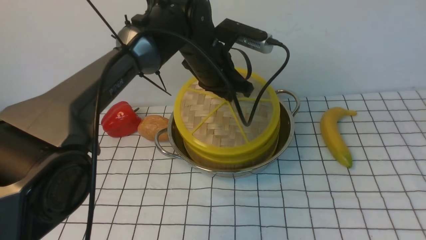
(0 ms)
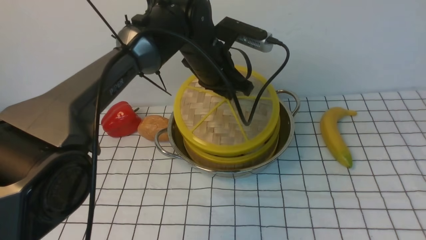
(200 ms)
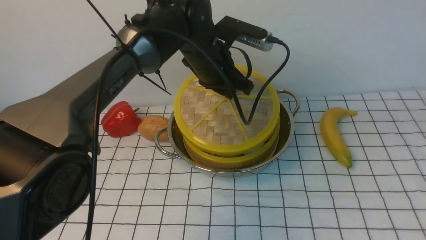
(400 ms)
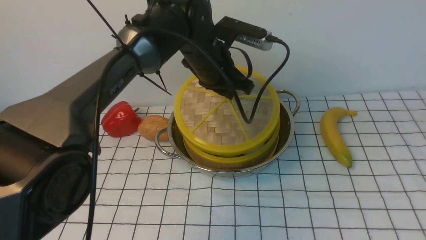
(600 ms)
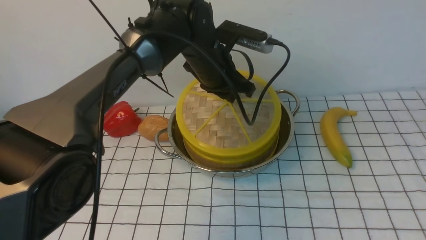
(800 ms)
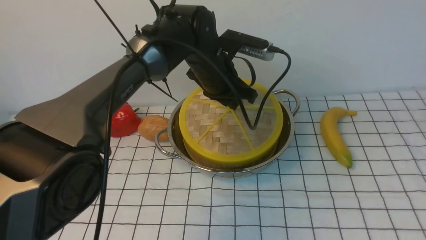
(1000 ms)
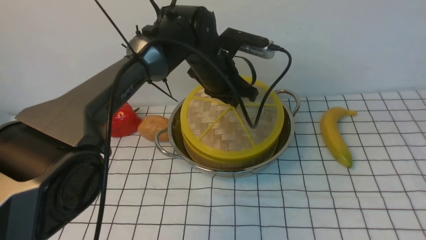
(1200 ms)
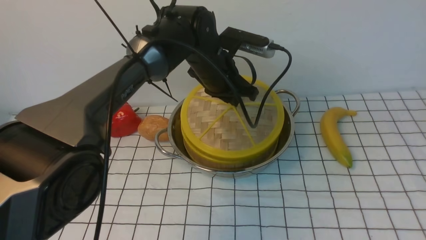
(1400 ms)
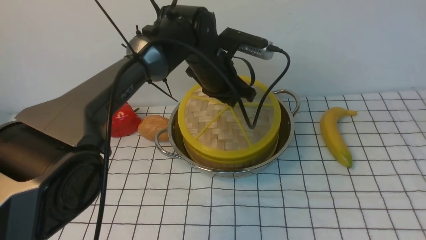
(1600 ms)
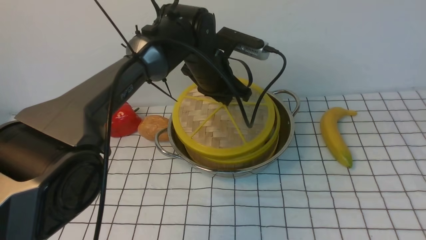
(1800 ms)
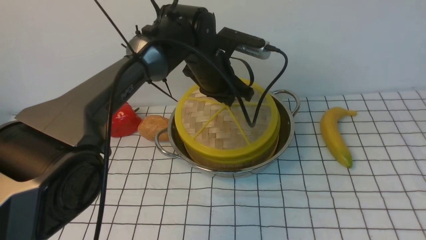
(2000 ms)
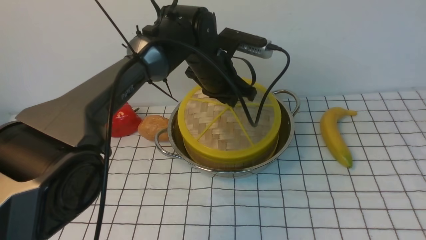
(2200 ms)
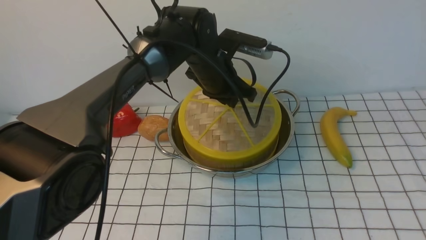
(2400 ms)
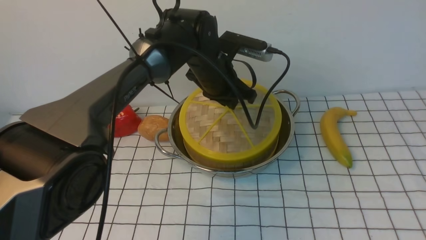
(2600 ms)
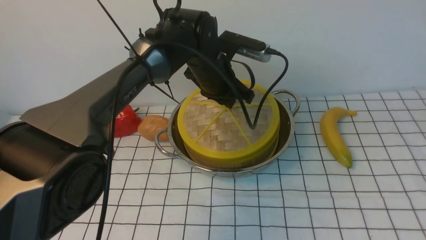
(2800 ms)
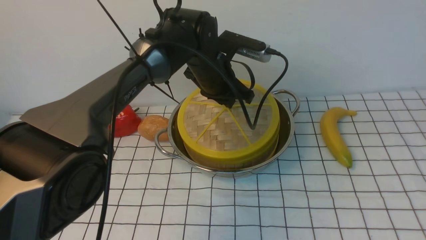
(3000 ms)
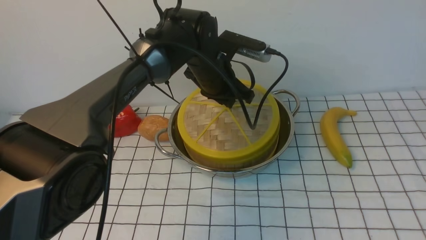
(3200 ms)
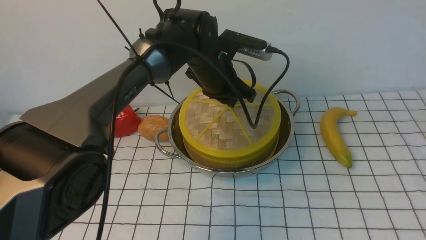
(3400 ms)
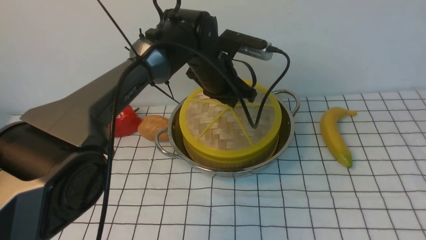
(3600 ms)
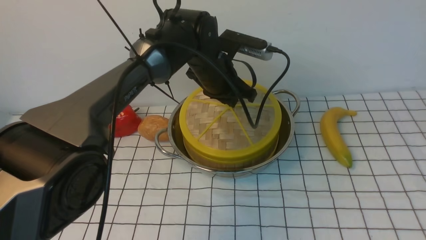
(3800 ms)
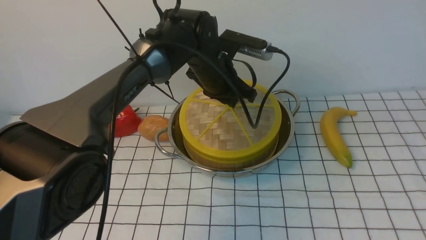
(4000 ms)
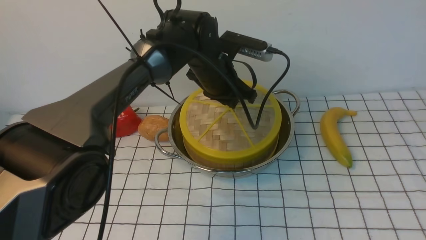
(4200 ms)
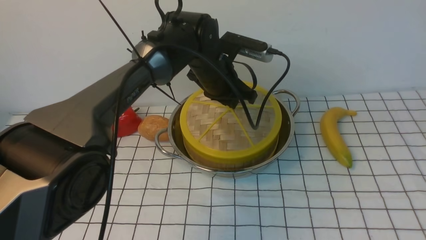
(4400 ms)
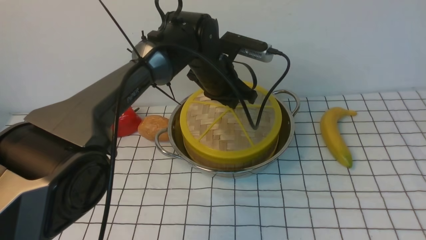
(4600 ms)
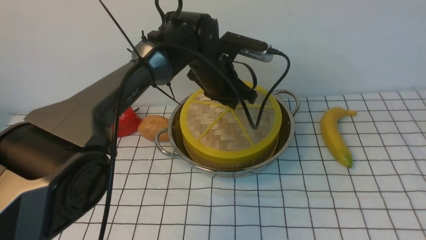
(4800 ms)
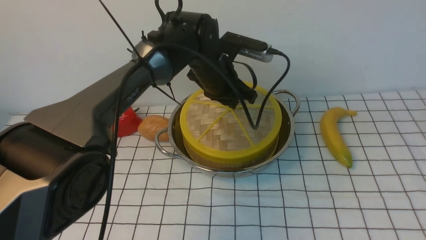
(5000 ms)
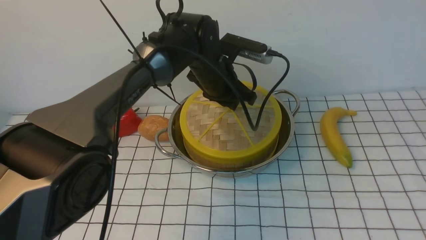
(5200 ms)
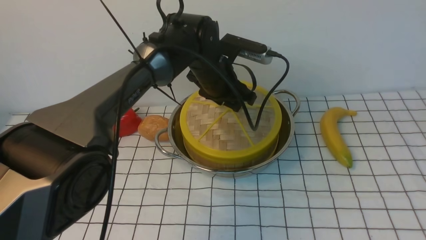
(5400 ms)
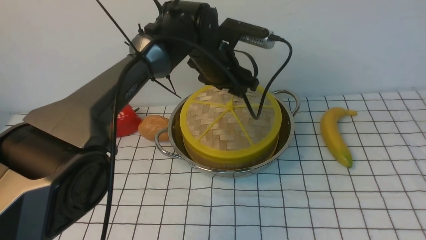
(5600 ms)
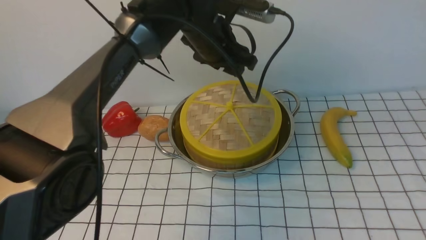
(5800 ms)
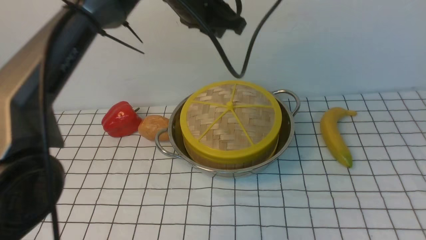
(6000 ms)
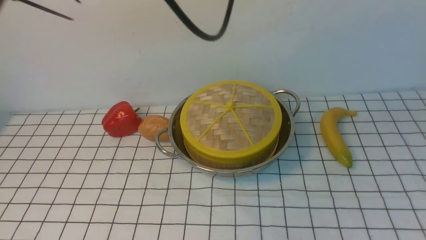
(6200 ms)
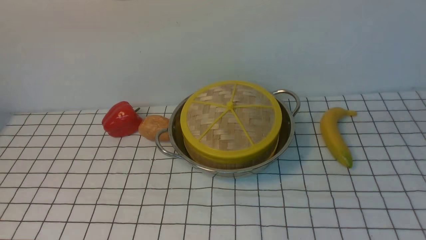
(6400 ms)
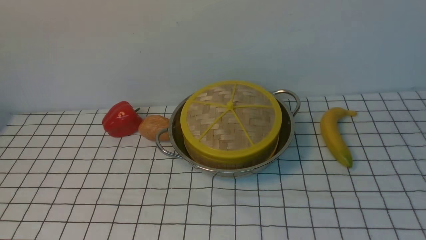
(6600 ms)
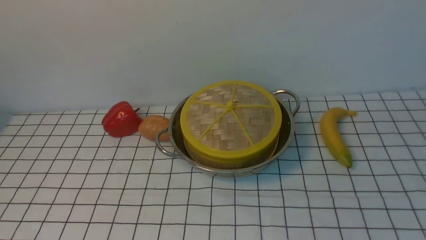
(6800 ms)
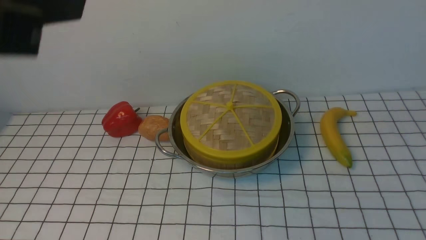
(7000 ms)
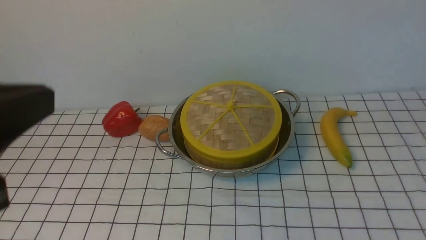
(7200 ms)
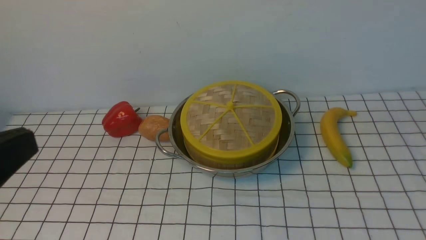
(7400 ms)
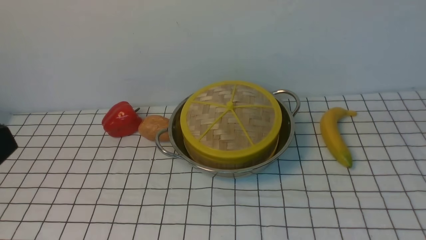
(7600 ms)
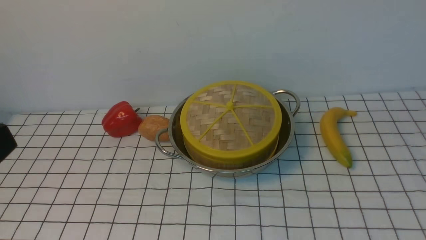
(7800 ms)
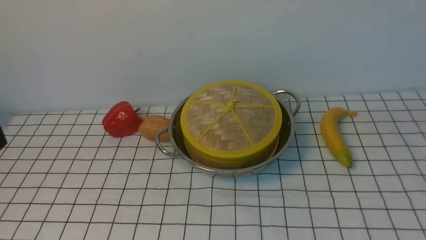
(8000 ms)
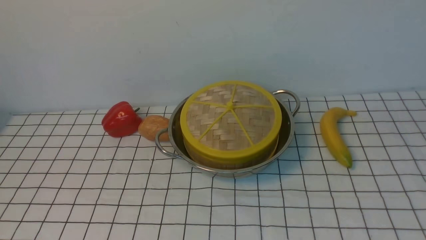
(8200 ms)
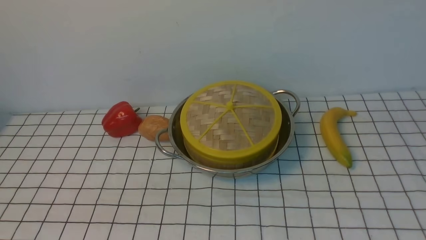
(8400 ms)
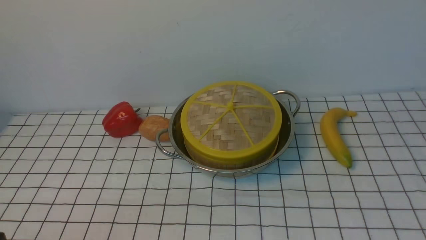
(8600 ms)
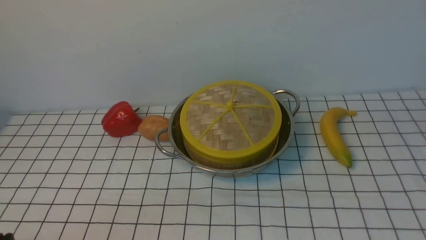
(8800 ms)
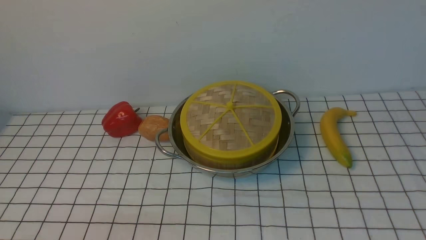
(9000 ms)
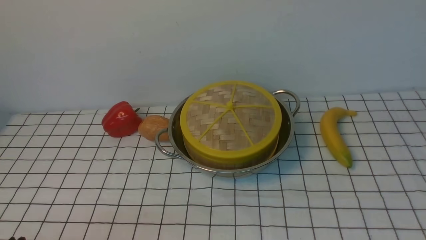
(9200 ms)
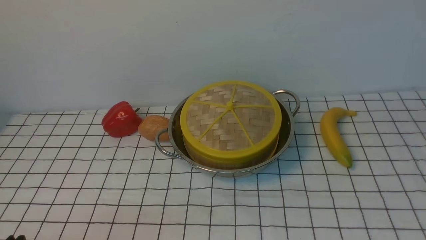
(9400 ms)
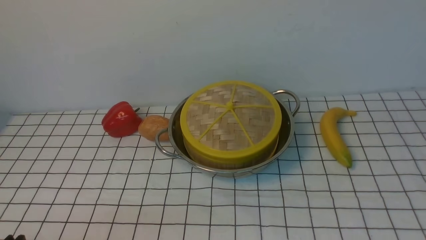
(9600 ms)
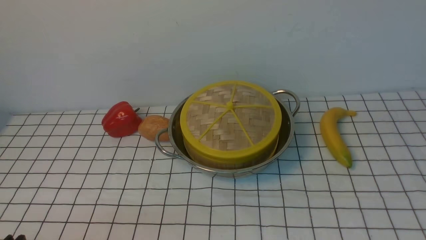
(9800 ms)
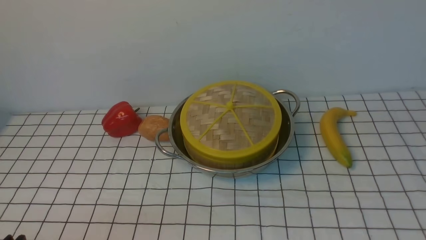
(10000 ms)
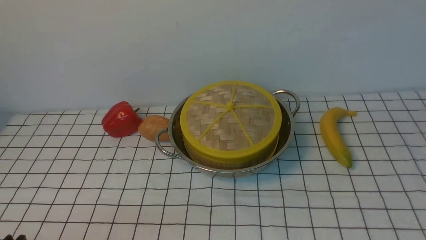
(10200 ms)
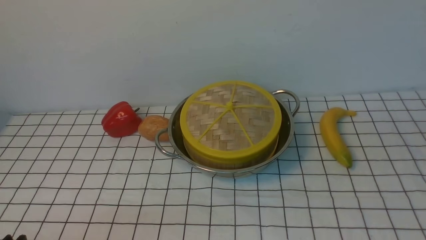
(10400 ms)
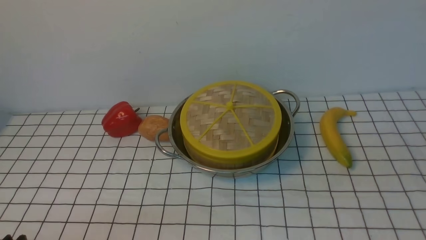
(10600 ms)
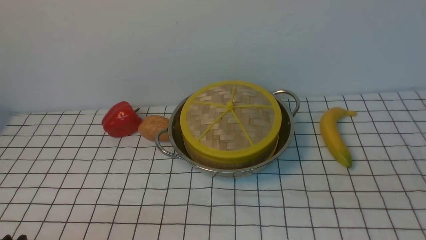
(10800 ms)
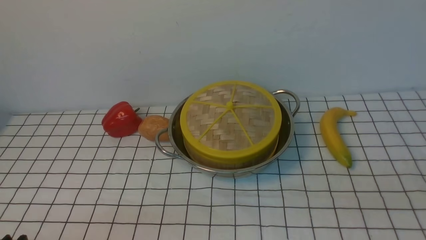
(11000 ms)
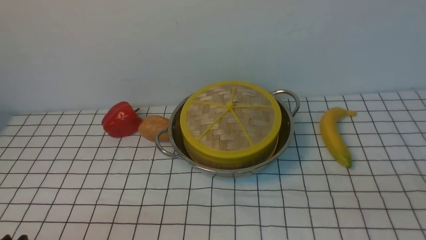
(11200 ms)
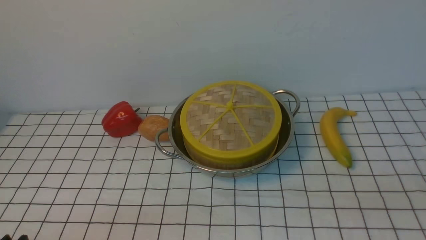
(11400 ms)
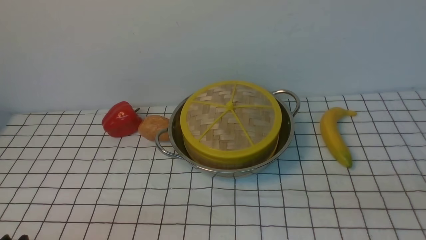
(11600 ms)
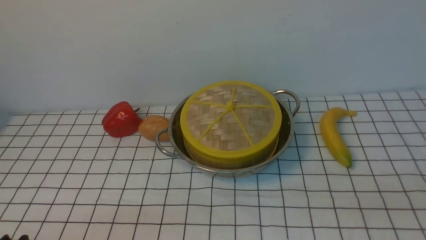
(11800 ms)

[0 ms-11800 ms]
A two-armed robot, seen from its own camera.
Task of the whole recording: place the steamer in the pot on the white tablecloth, and put the lid on the steamer.
Step, 0 ms to 5600 ms: use the left arm to place the steamer lid on the steamer.
0 ms to 1400 ms: There are only small adjustments of the grippers.
1400 ms to 4400 ms: The two grippers keep their place.
4400 ms to 6000 ms: The left gripper travels upward by approximately 15 cm, and opens, then closes once more.
6000 ms to 7400 ms: The left gripper travels backward and to the left by about 40 cm, and closes.
7400 ms to 8800 ms: The left gripper goes some 20 cm downward.

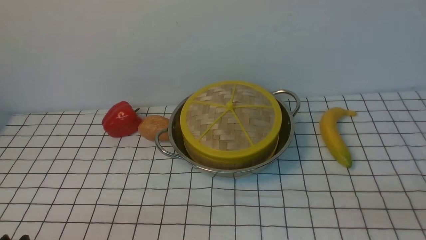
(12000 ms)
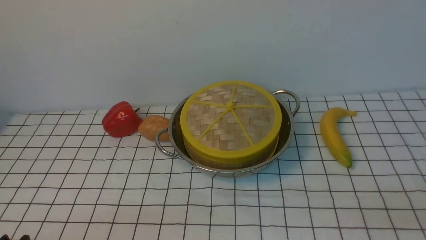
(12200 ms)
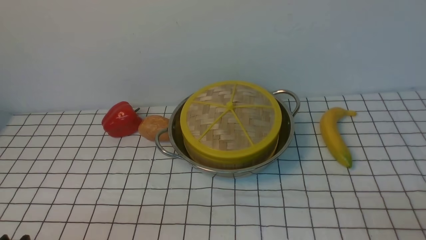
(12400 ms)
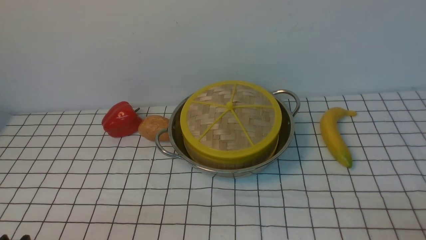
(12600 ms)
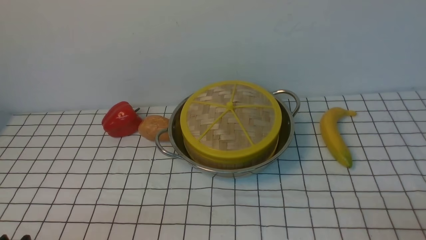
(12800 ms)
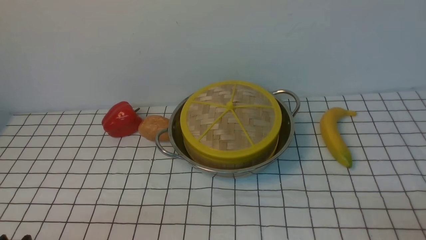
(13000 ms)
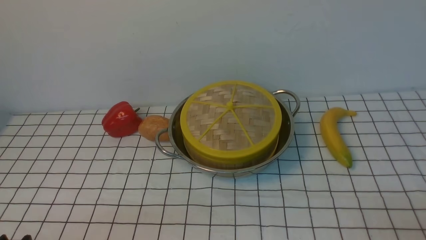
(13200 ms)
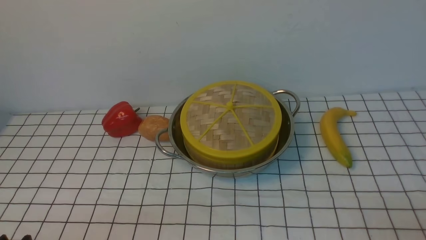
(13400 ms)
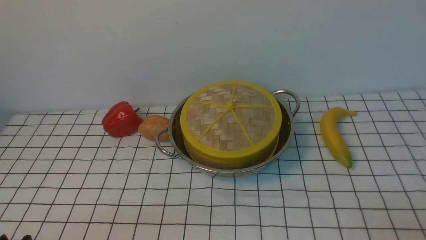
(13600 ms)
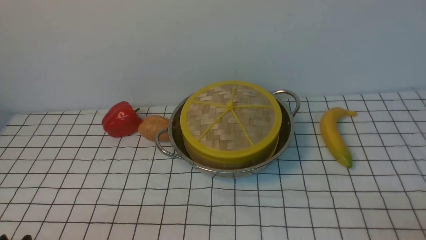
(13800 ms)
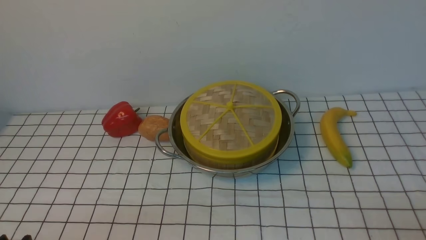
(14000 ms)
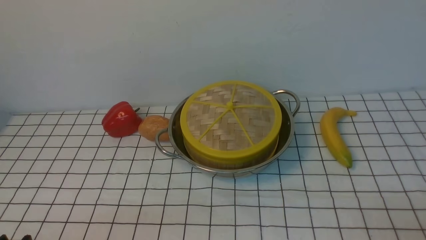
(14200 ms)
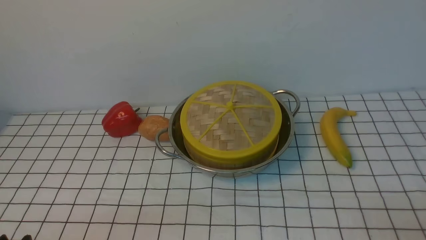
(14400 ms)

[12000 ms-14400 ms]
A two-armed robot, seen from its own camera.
Task of the whole recording: place the steamer in the pot on the white tablecloth, and put the lid on the steamer.
13200 ms to 14400 ms: Neither gripper changes place.

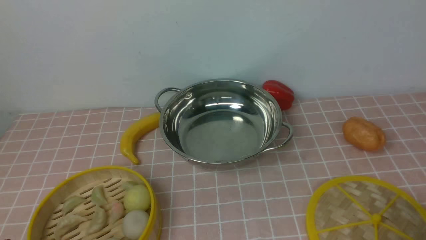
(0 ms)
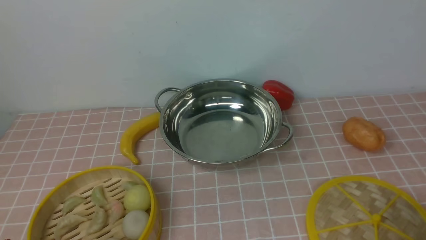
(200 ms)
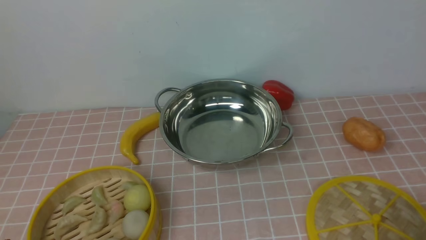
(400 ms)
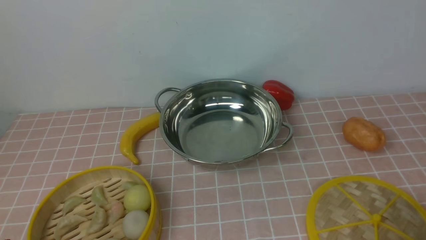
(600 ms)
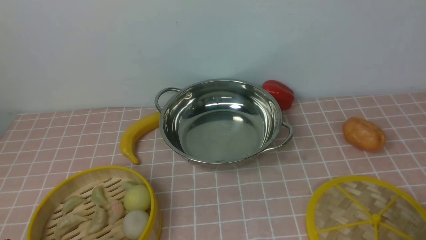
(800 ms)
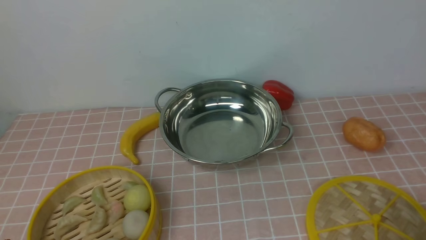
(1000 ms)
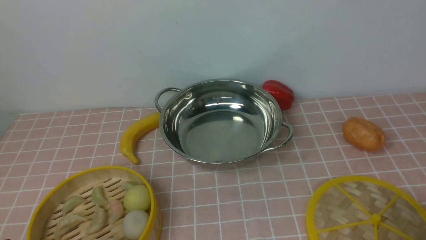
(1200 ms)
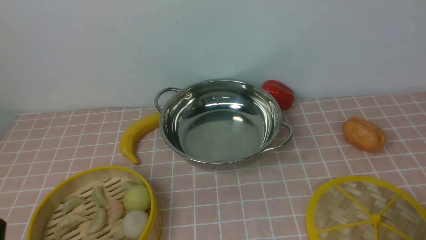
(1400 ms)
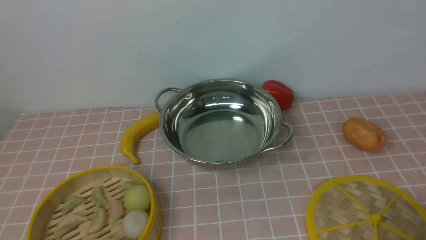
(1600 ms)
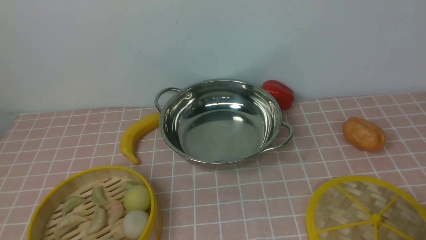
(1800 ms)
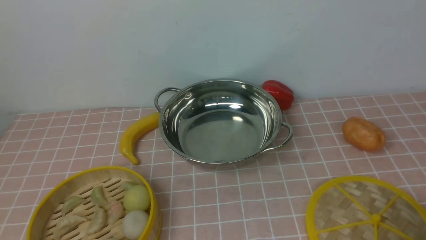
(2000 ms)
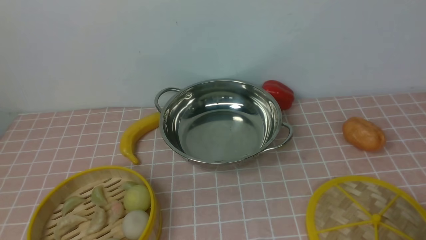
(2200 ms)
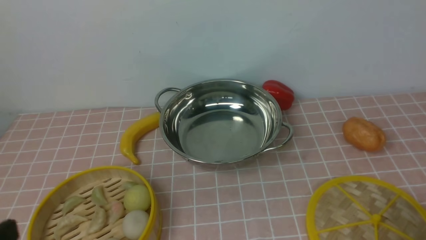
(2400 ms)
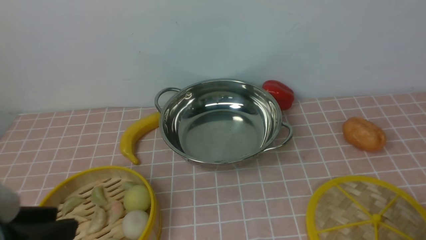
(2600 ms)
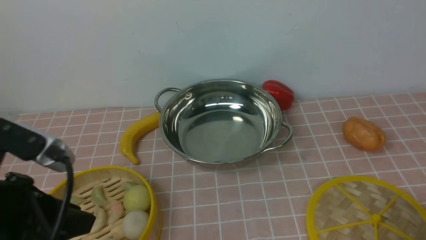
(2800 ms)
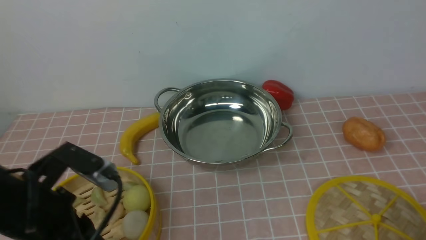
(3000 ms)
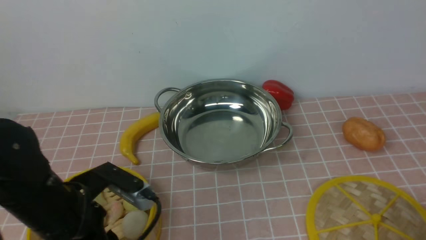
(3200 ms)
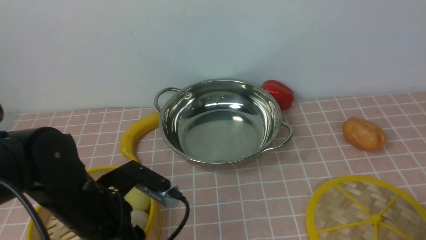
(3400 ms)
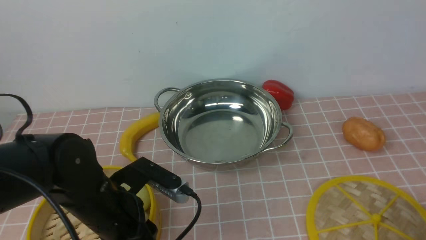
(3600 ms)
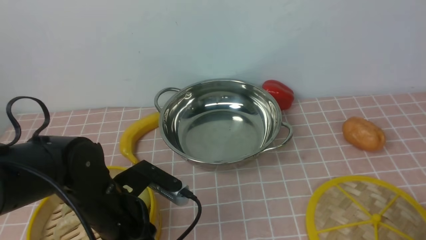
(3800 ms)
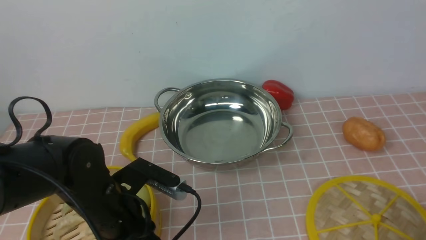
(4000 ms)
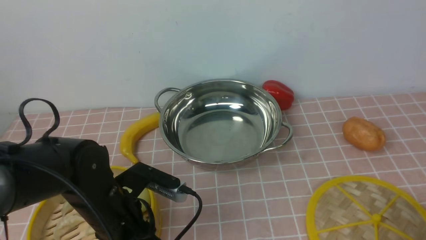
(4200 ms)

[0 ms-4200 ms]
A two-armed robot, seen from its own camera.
Task of the whole recording: place the steamer in the pot on the pink tablecloth, and put the lid on the steamer.
1400 ms to 2800 ms: The left gripper heads upward and forward, covering roughly 15 cm.
2800 ms to 4200 ms: The left gripper travels downward, forward and to the right by approximately 15 cm.
